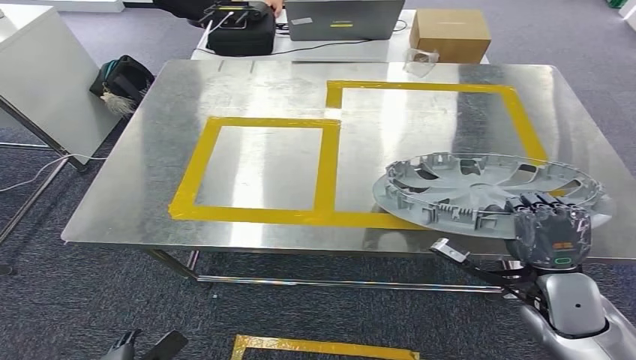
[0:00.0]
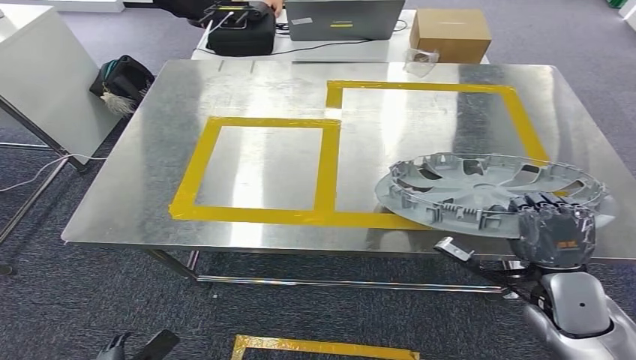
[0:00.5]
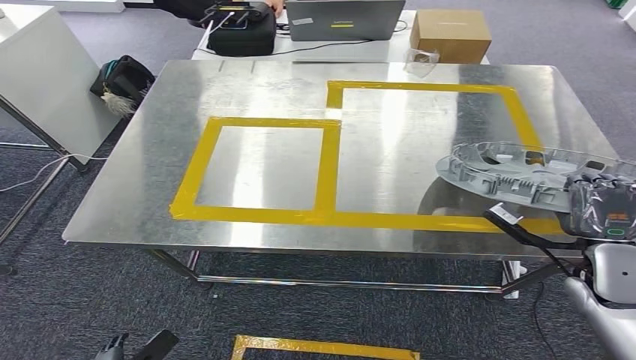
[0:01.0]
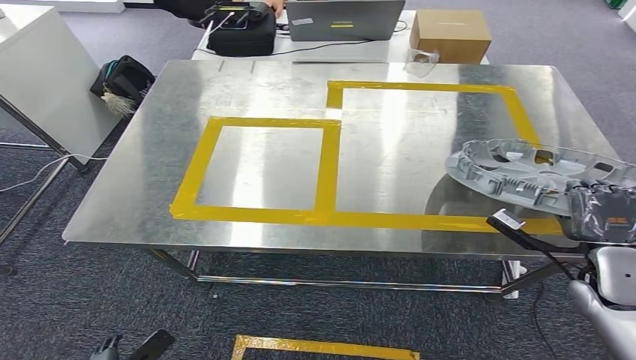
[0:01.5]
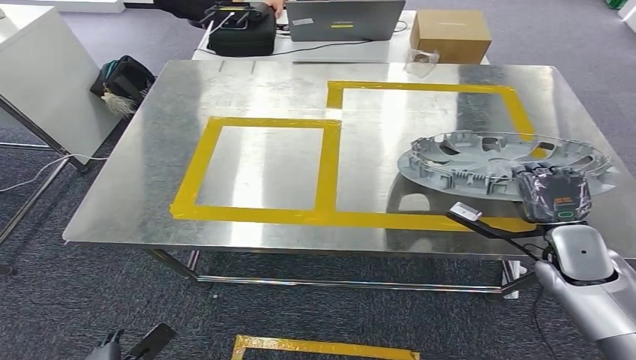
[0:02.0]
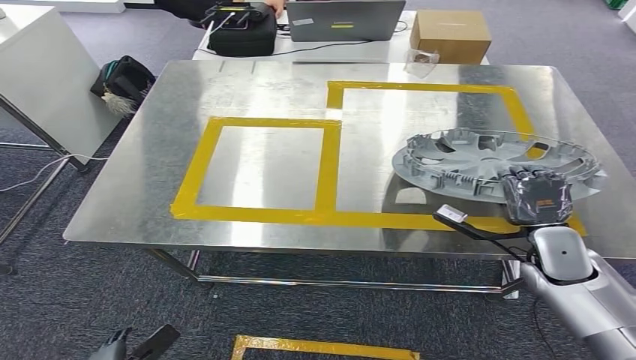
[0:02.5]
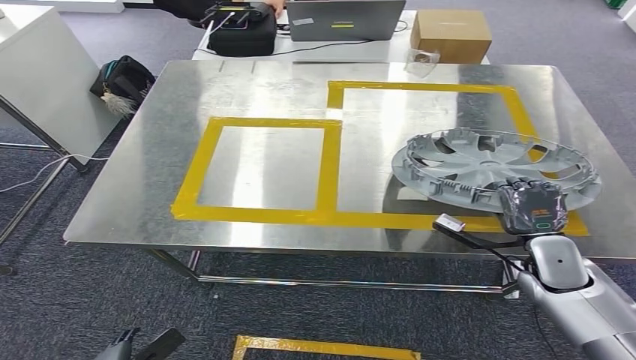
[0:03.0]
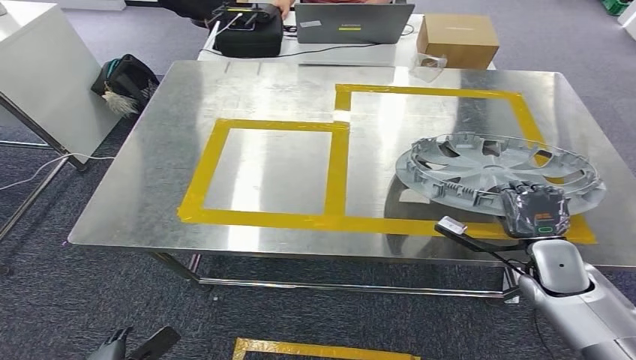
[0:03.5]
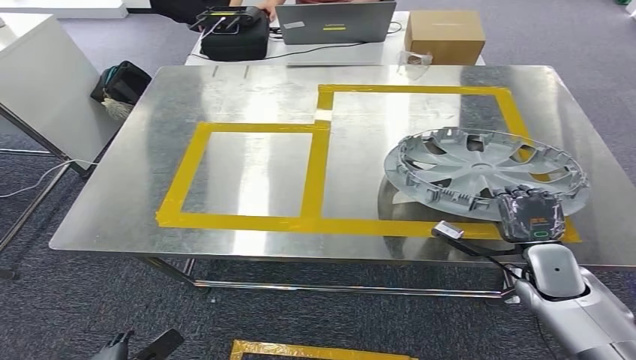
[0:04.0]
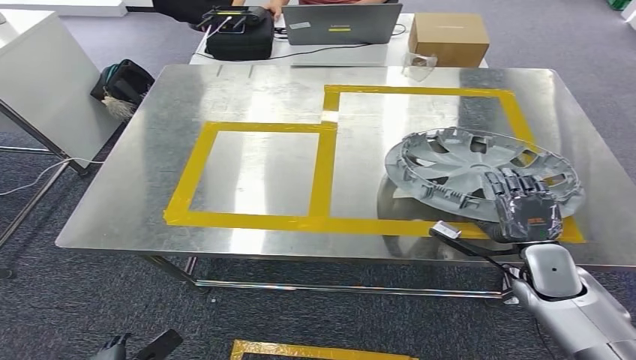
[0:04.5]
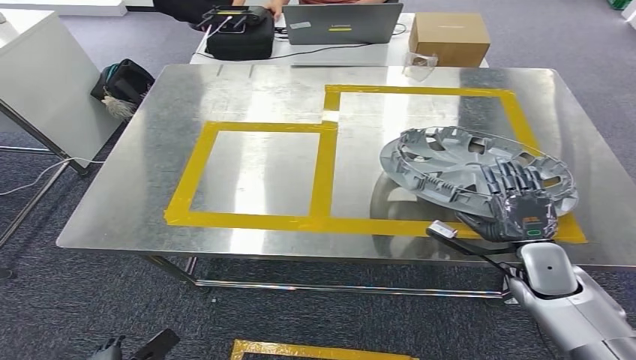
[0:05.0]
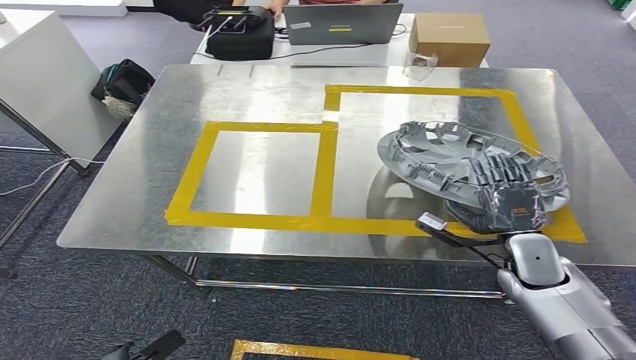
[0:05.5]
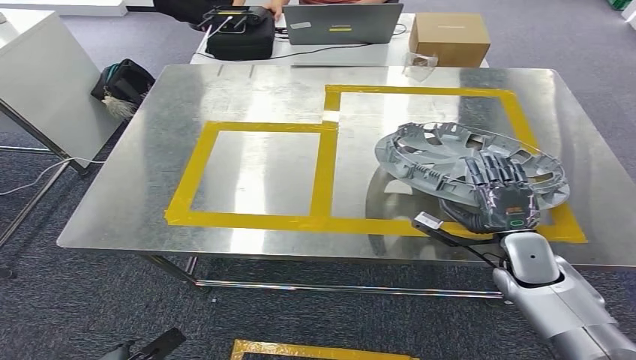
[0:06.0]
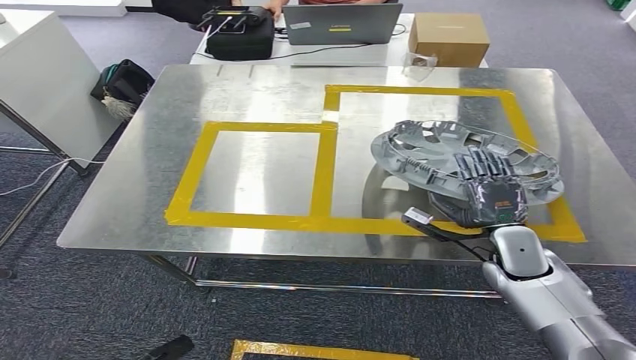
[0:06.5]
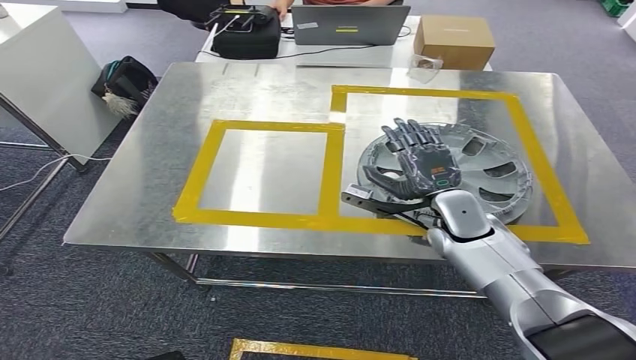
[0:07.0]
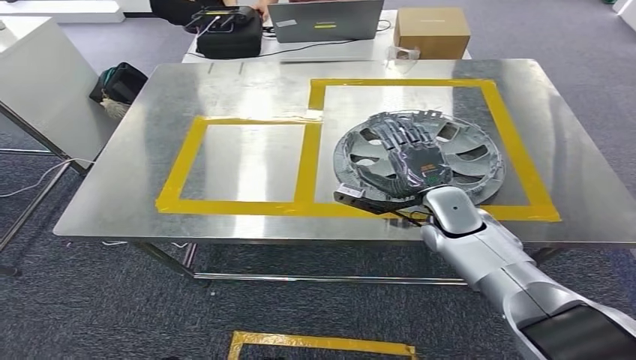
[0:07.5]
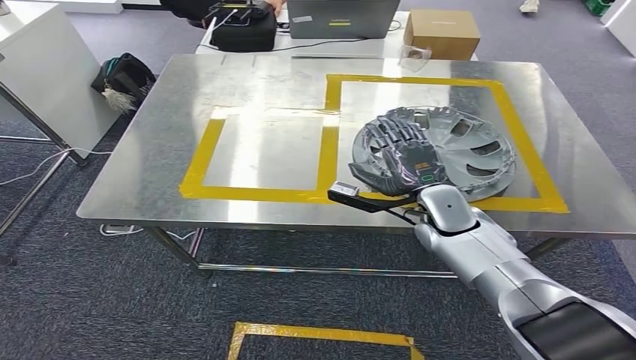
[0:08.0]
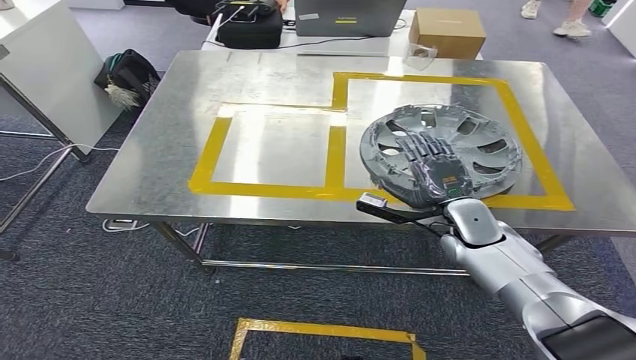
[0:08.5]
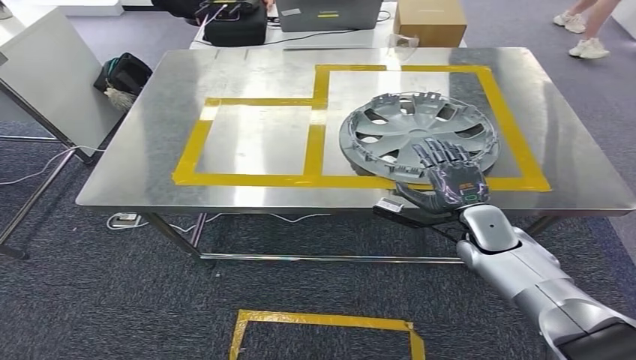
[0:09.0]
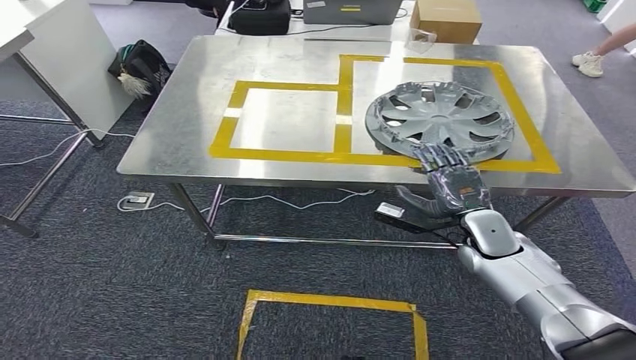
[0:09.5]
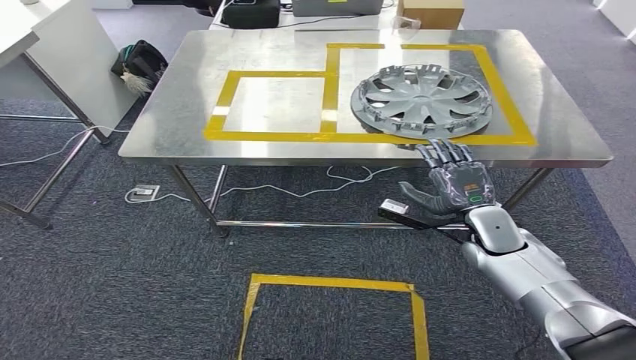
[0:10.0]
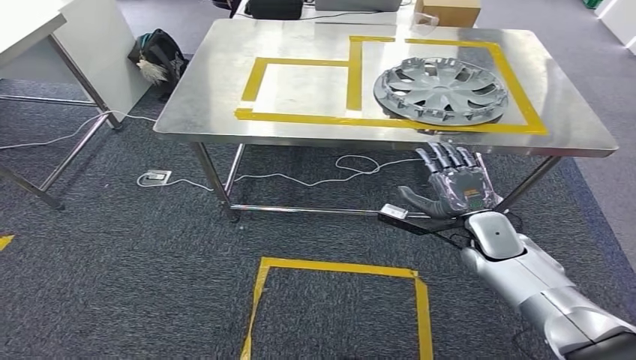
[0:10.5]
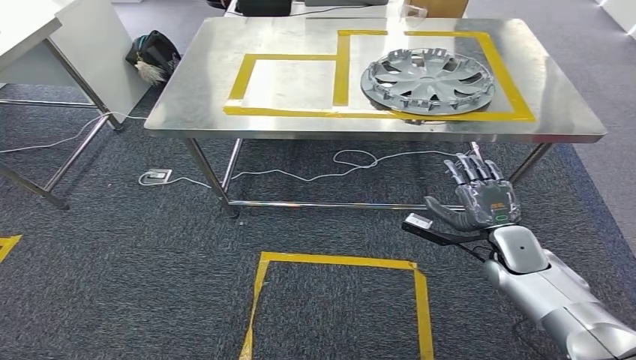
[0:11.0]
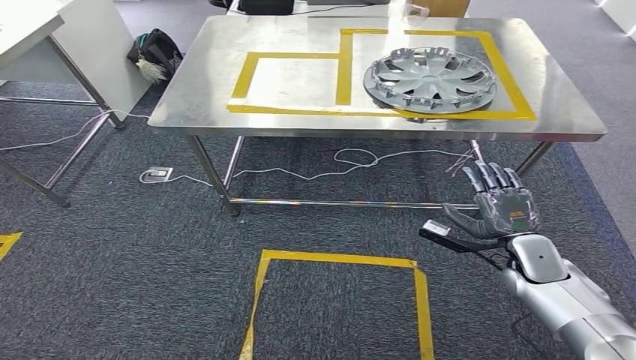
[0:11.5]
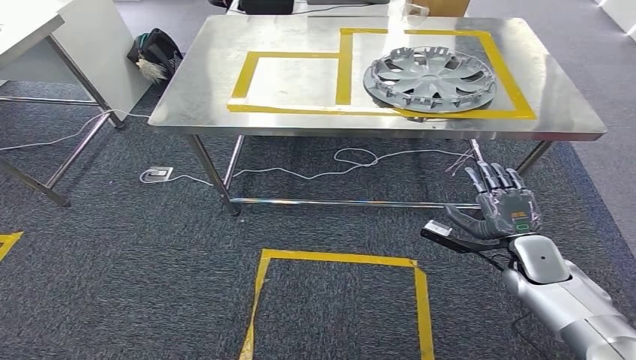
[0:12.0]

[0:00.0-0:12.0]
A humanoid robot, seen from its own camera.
Step, 0:00.0 to 0:07.5: Insert the small parts into the corresponding slots on the workbench.
0:00.0 to 0:02.0: The right hand travels forward by roughly 5 cm.
0:04.0 to 0:06.0: The hands make only small movements.

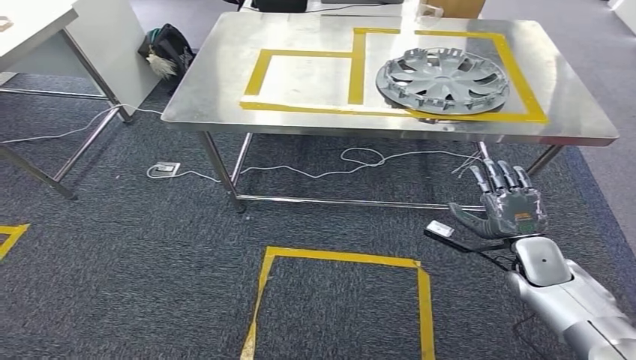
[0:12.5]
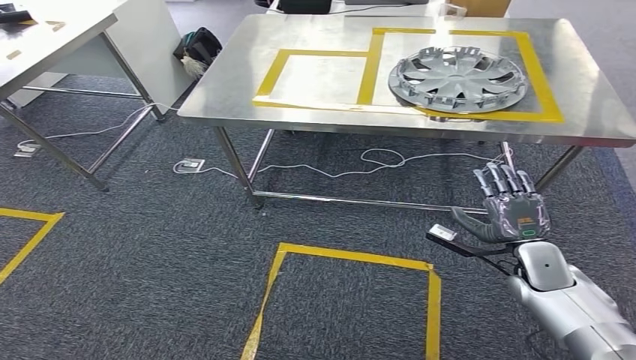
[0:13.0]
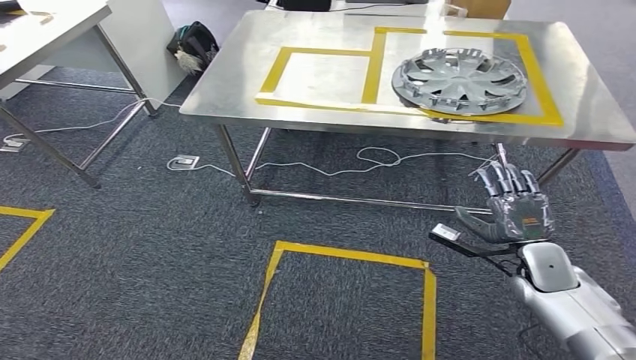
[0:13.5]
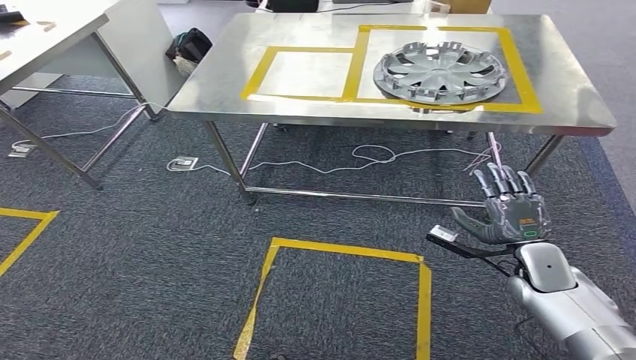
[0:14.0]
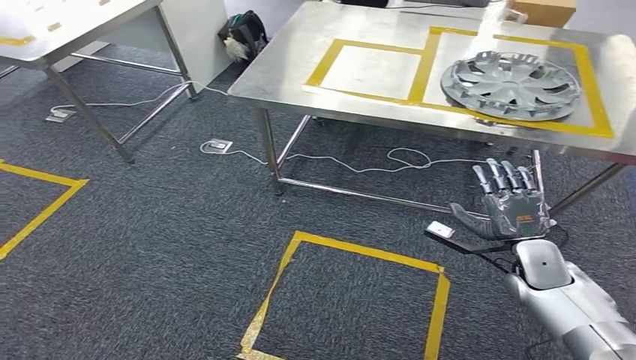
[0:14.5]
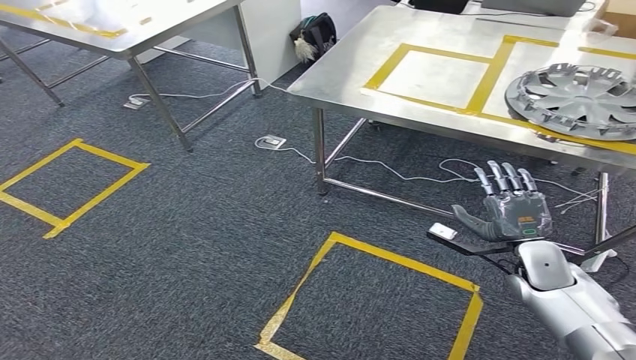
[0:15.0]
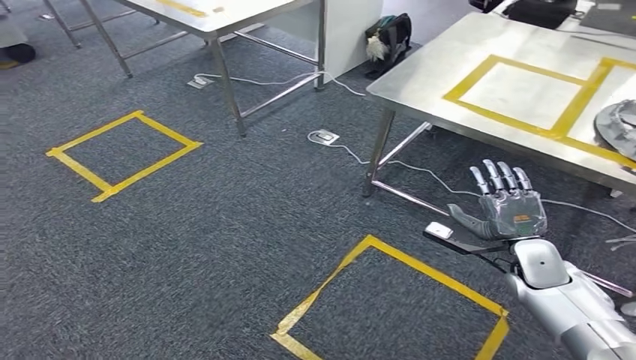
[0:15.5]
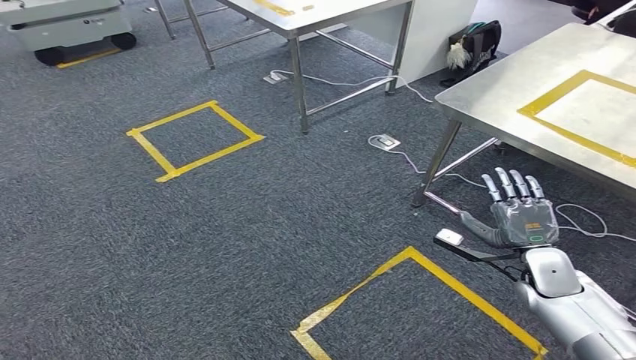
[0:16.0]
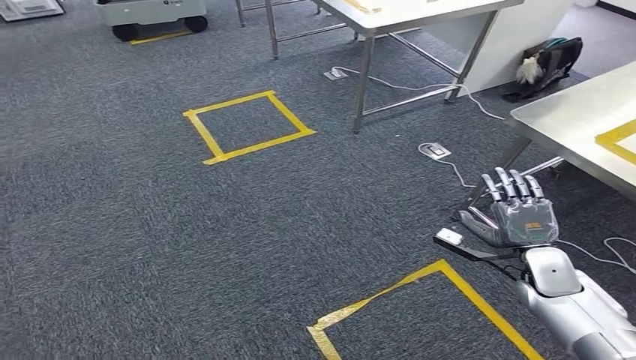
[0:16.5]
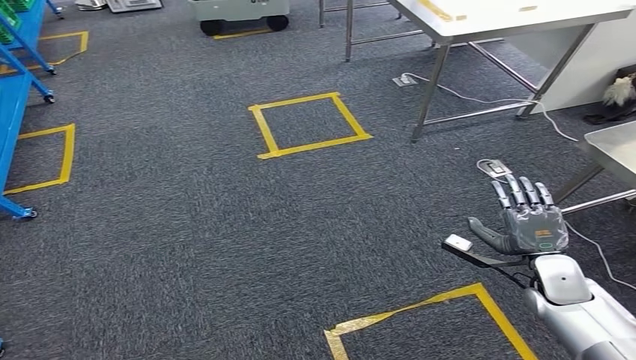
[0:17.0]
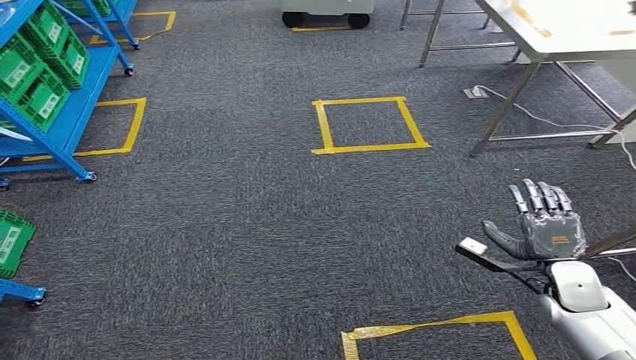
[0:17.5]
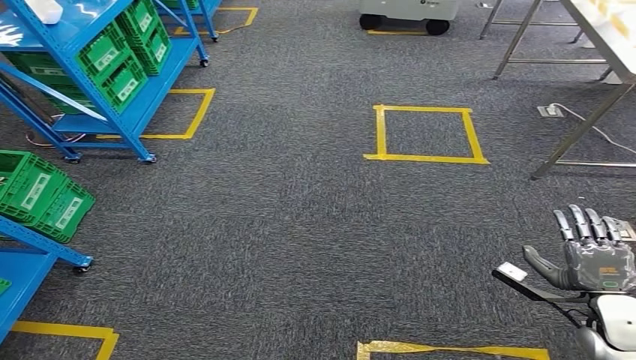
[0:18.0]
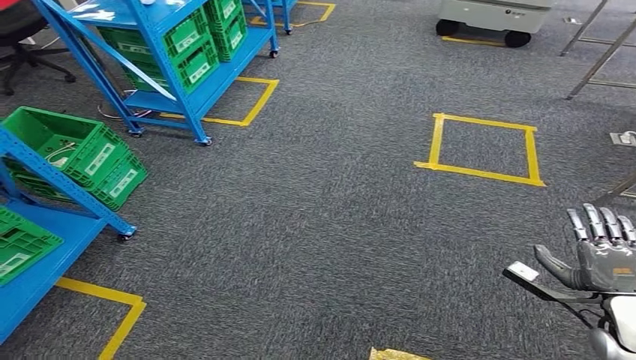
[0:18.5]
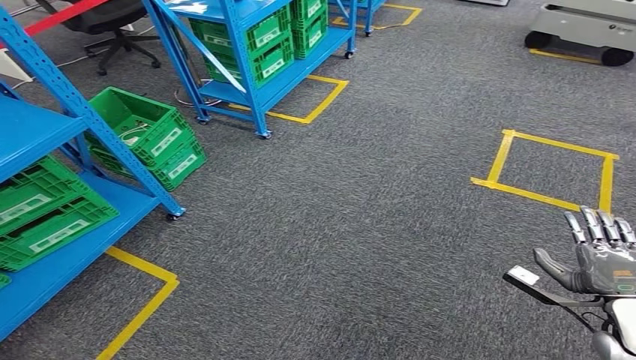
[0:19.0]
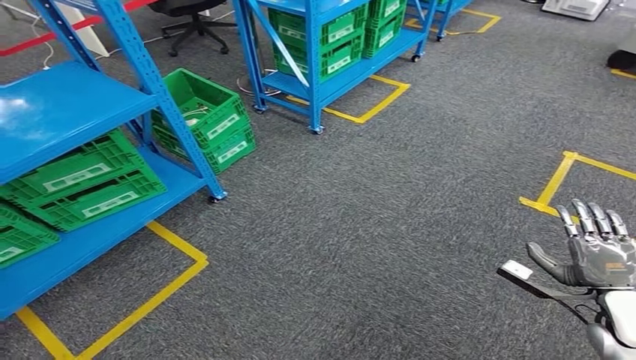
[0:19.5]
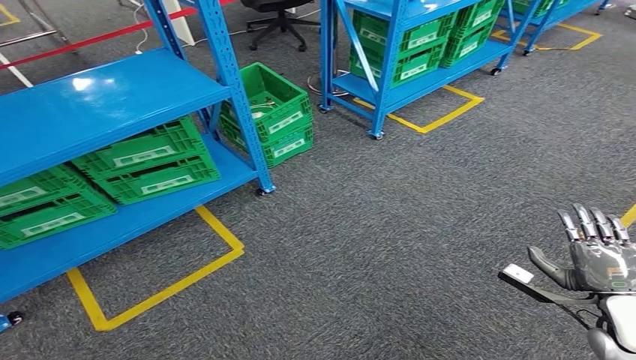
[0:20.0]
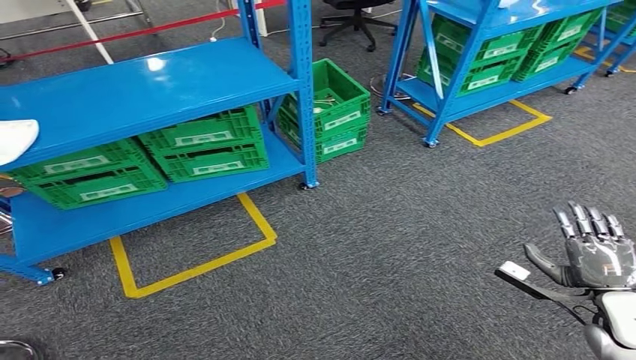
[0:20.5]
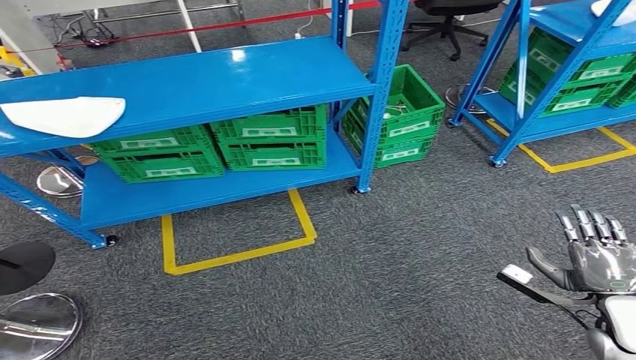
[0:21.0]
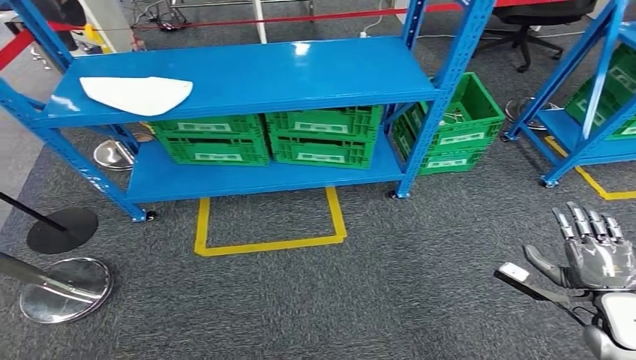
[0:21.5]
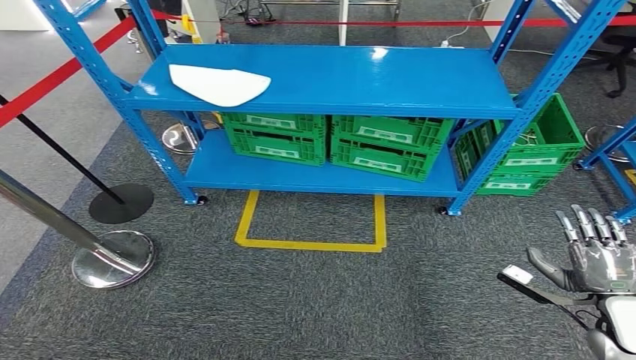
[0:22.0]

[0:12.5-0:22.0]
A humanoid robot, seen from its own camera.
Step, 0:12.5 to 0:22.0: Return to the initial position at the workbench.
